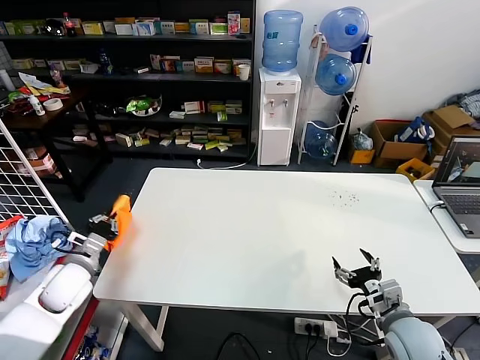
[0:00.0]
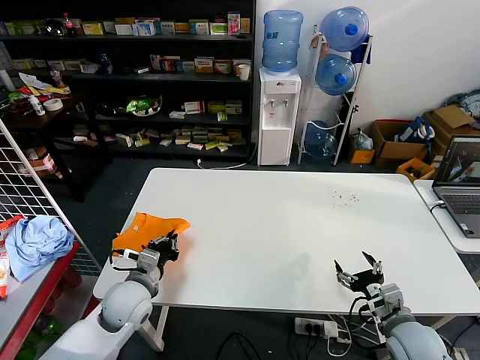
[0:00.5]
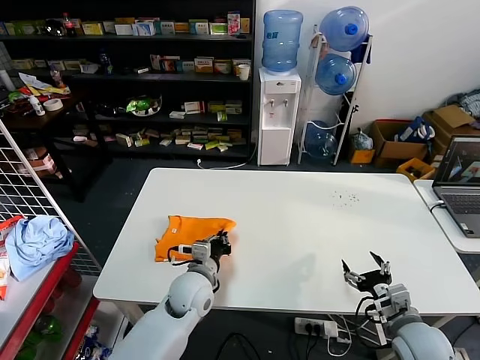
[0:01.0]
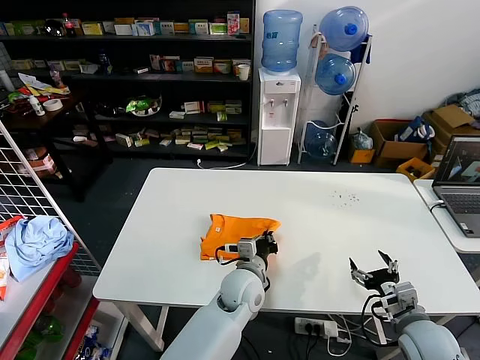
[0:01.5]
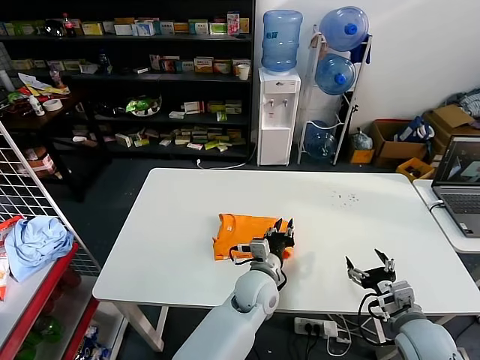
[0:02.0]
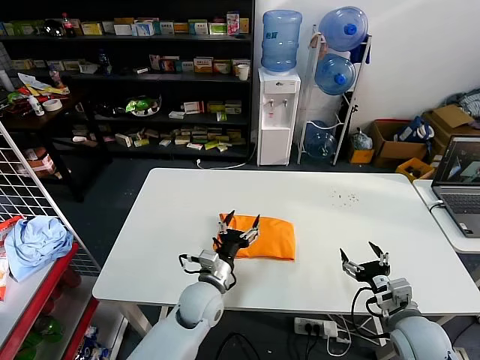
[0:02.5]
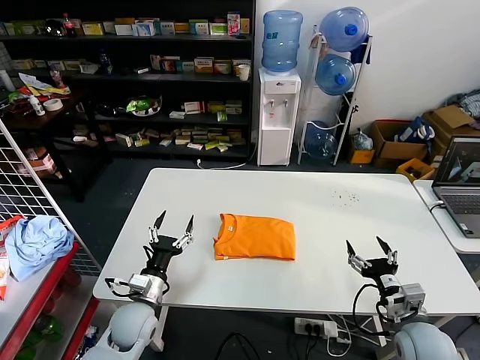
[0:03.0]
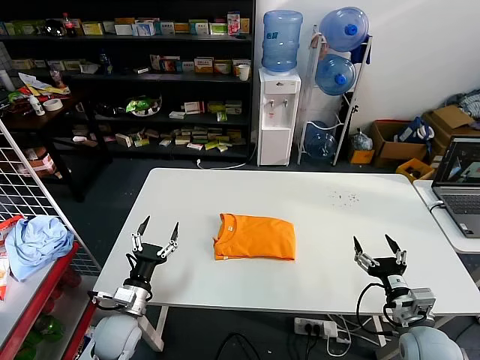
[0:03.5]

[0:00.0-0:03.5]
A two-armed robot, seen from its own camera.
Task of the whole recording: fold and organize the clothes.
Step, 0:00.0 to 0:02.0: Flip the folded clothes over with left gripper.
0:00.0 to 0:02.0: The left gripper moves to the right, some 40 cm.
0:02.0 to 0:03.5: The left gripper heads to the left, covering about 30 cm, and opens up.

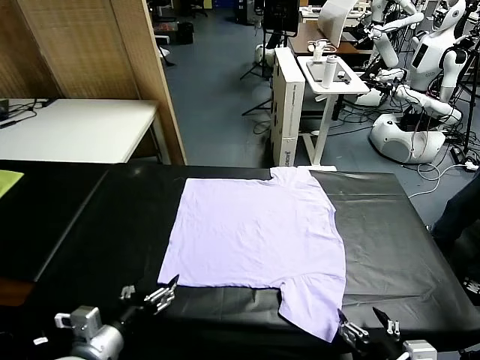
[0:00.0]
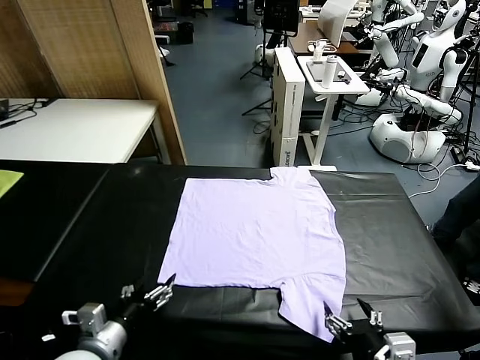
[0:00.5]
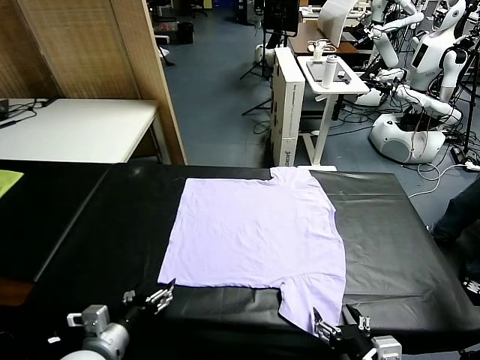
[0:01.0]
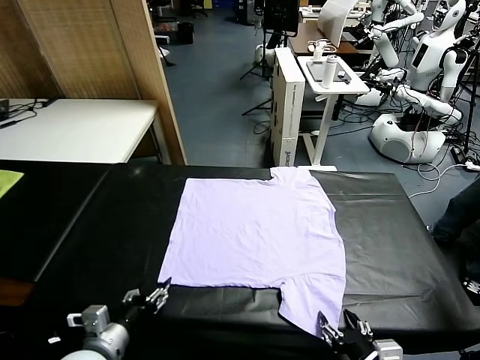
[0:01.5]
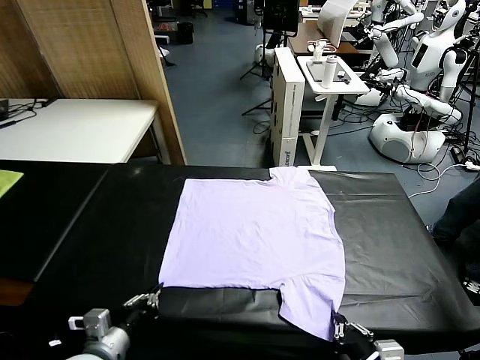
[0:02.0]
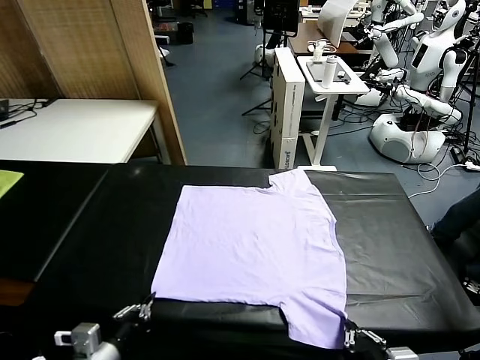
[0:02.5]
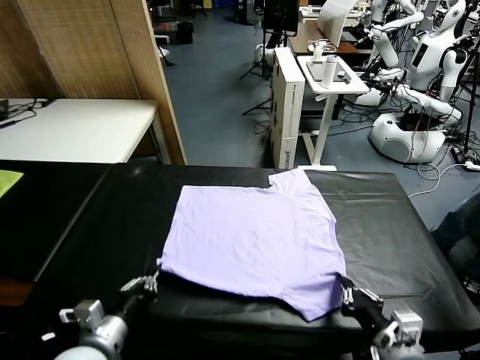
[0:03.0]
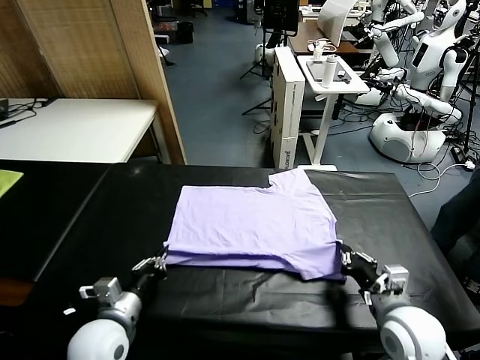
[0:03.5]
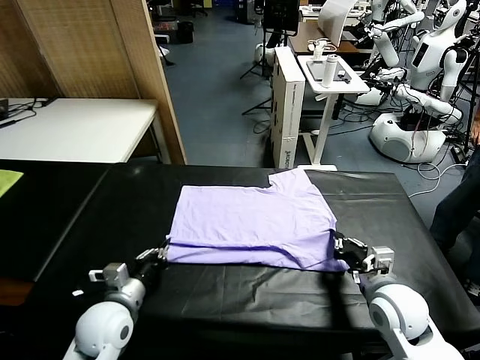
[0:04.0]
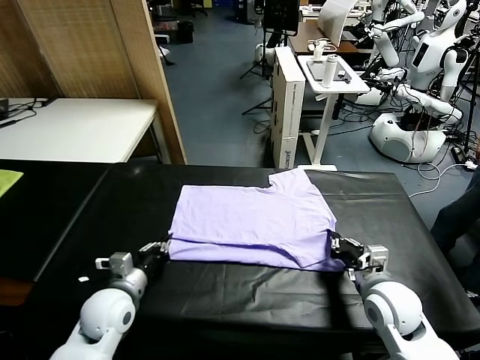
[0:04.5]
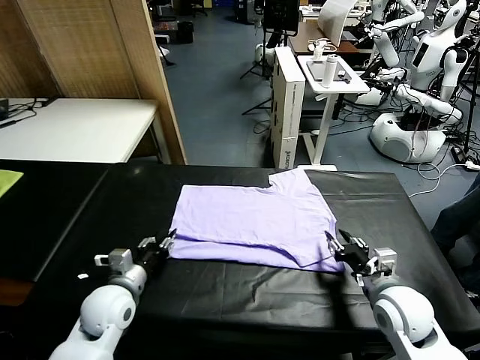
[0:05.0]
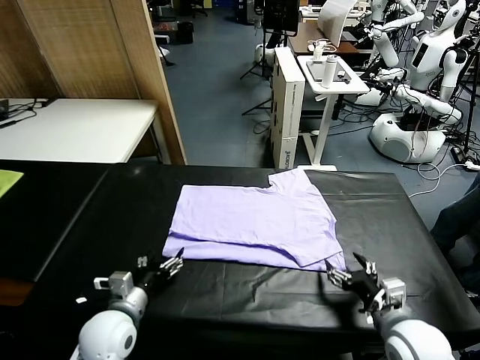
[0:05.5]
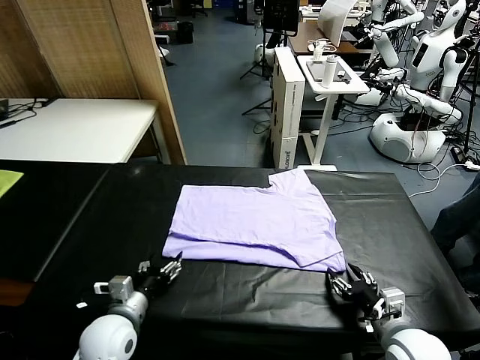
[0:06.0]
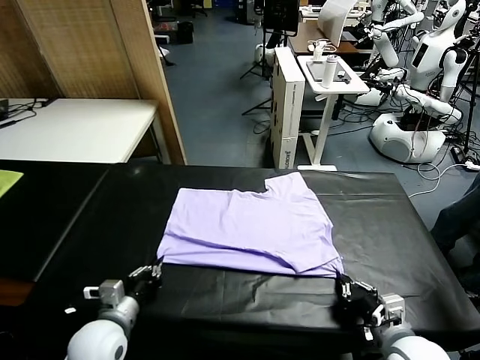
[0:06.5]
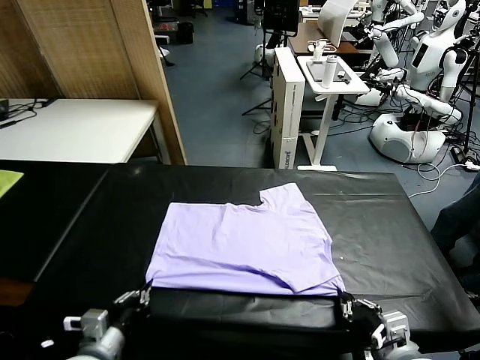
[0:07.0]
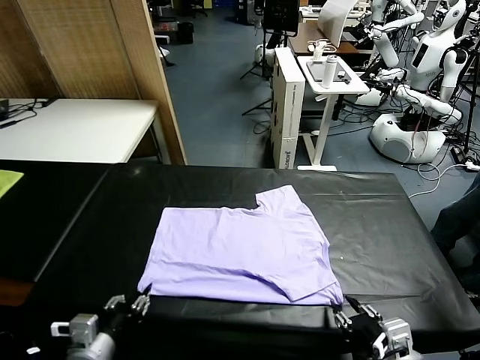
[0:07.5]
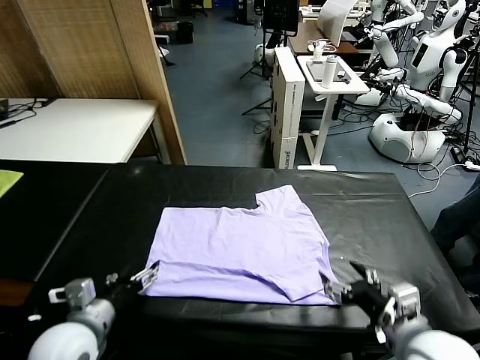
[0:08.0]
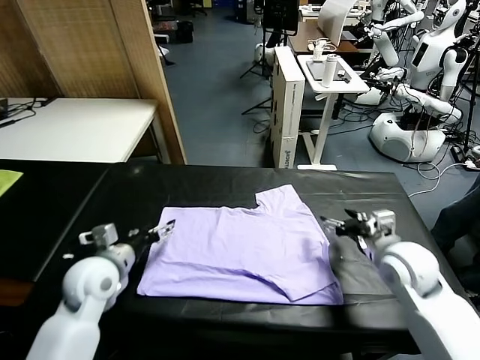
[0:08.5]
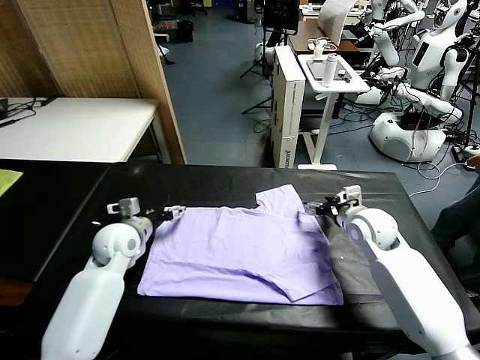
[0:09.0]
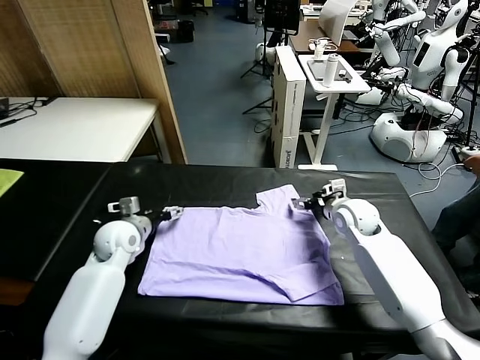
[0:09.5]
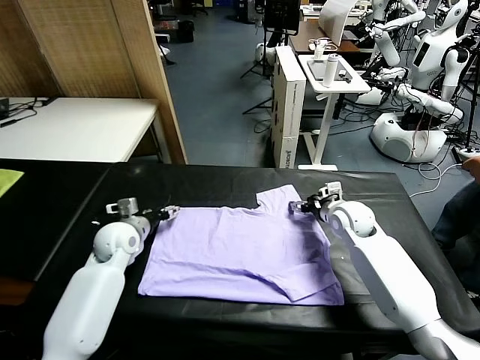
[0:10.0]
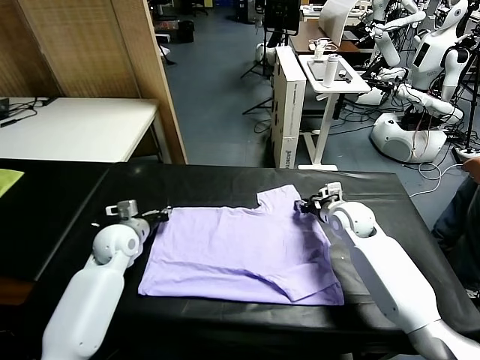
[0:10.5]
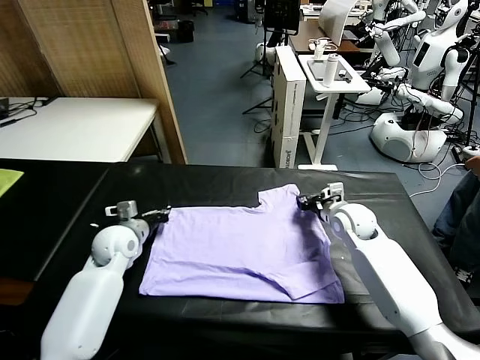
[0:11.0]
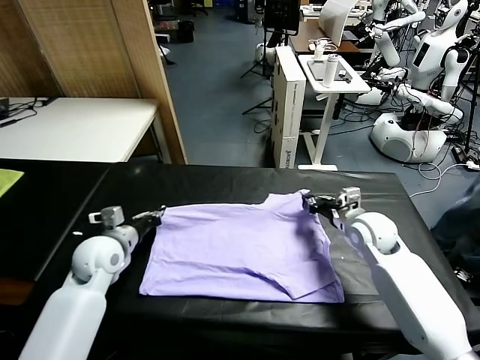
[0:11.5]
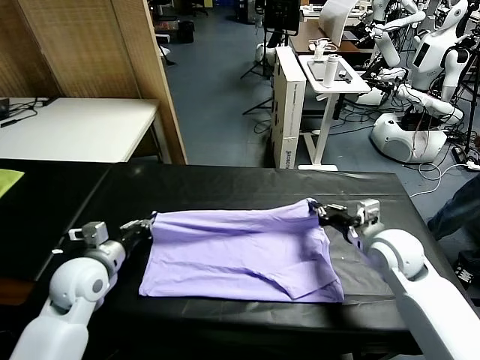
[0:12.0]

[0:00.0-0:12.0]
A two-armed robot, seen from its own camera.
Task of the whole recording: fold and organize the clothes.
Step, 0:00.0 to 0:02.0: use both grippers simultaneously to clamp the lower edge of the clothing fabric.
Step, 0:02.5 to 0:05.0: use both grippers to drag the lower edge of the fabric forward and fold it over the upper edge.
Step, 0:05.5 to 0:07.5: Drag the clothes downward with both gripper.
Step, 0:08.0 to 0:10.5: use both grippers simultaneously to clamp the upper edge of the clothing fabric.
0:02.0 to 0:04.0: The left gripper moves forward, some 10 cm, while the right gripper shifts about 20 cm forward.
0:04.0 to 0:06.0: The left gripper opens; the right gripper is displaced backward by some 10 cm, and opens, then closes once more.
0:06.0 to 0:08.0: Both grippers move upward, roughly 10 cm. The right gripper opens up; the left gripper closes and opens again.
0:08.0 to 0:10.0: Both grippers travel together forward, roughly 25 cm.
0:10.0 to 0:12.0: Both grippers move backward, some 15 cm. The left gripper closes up, while the right gripper closes its fingers.

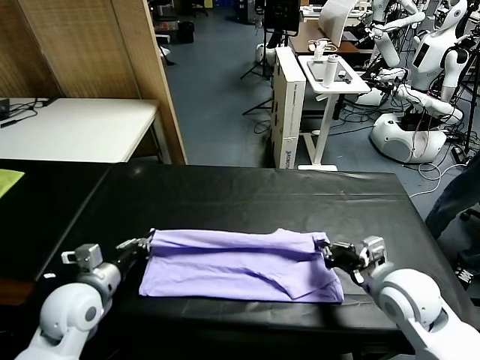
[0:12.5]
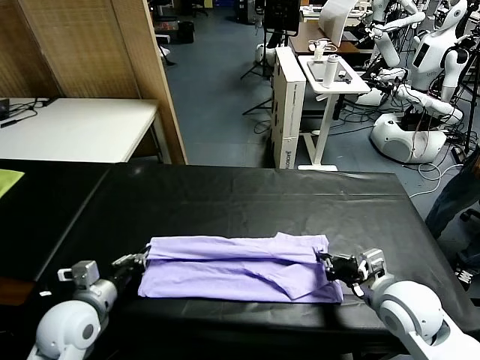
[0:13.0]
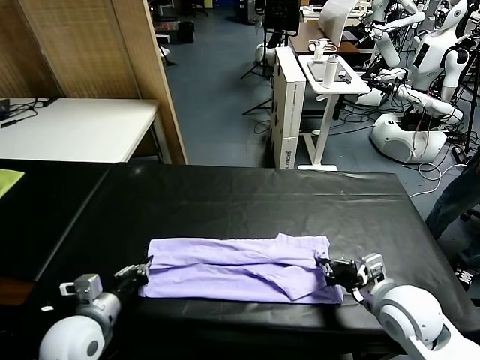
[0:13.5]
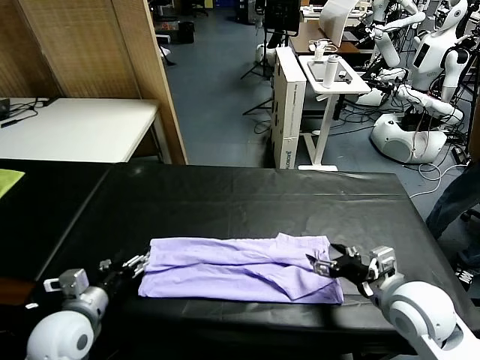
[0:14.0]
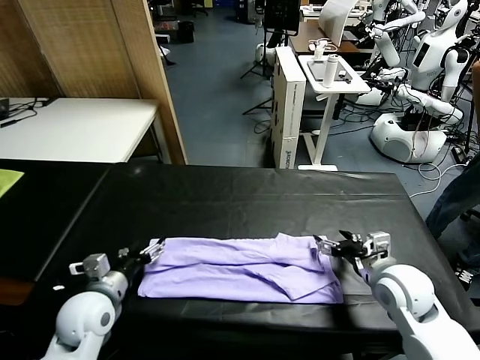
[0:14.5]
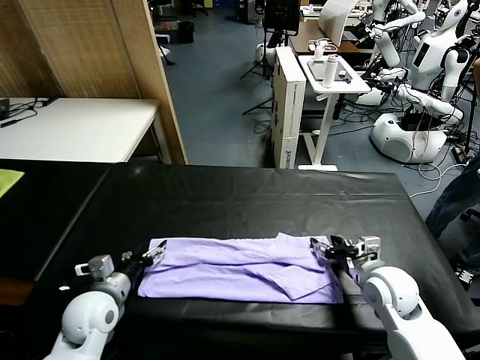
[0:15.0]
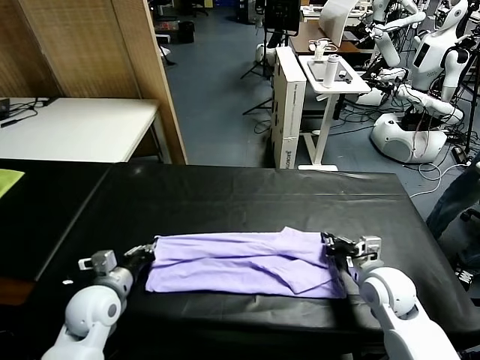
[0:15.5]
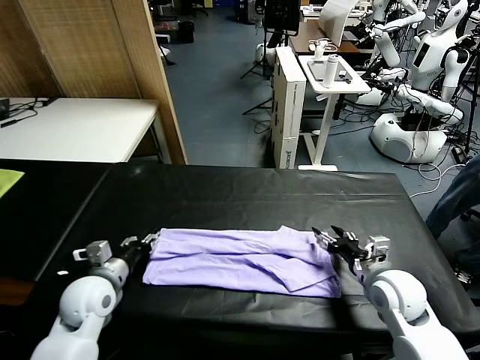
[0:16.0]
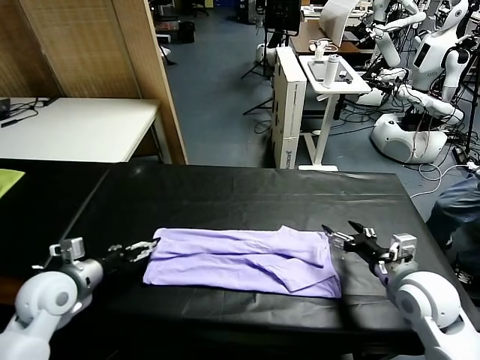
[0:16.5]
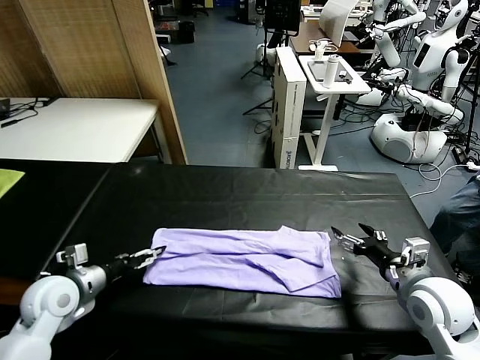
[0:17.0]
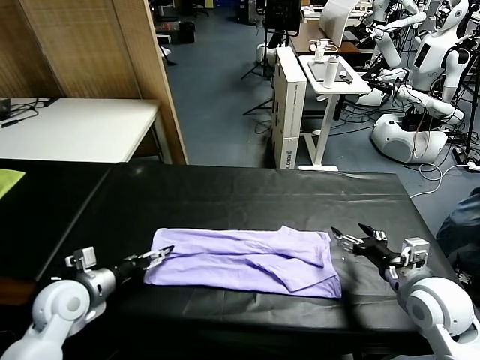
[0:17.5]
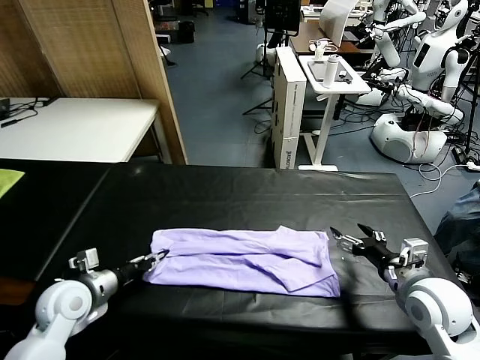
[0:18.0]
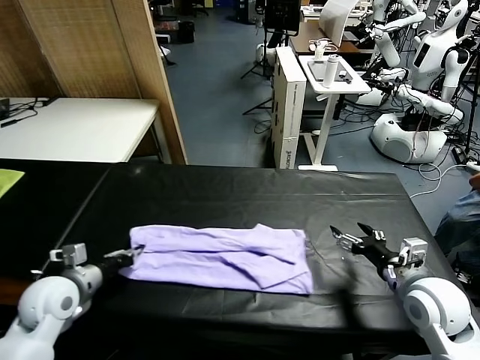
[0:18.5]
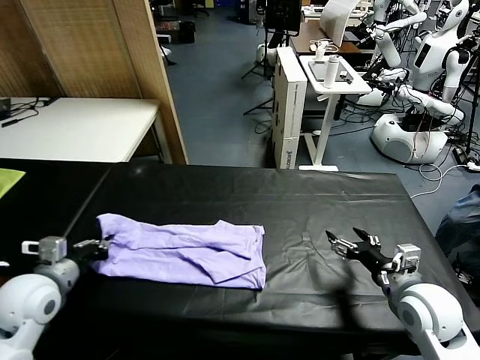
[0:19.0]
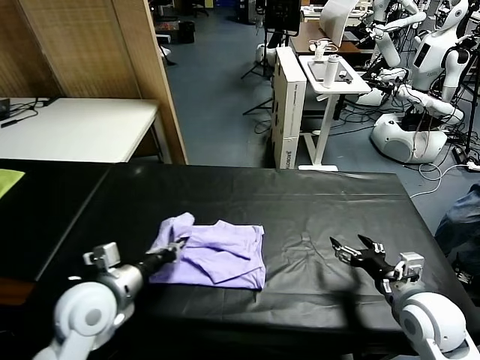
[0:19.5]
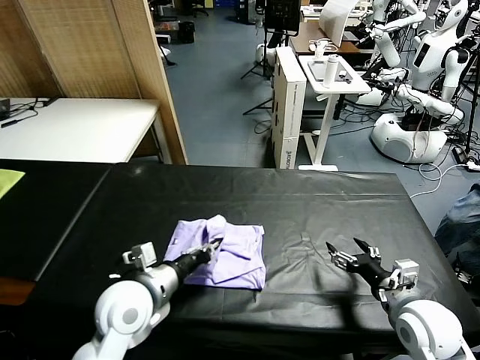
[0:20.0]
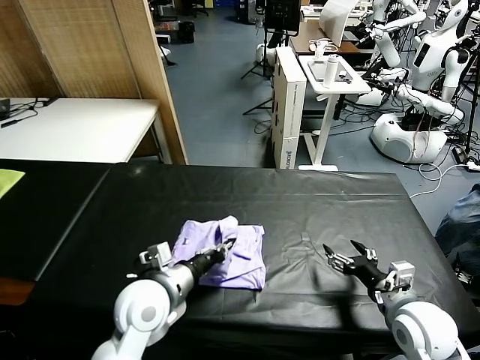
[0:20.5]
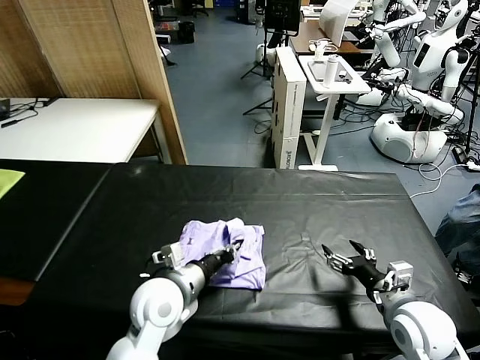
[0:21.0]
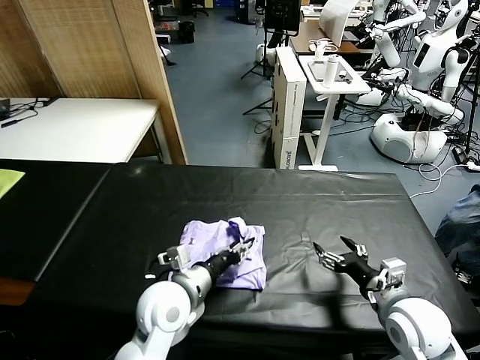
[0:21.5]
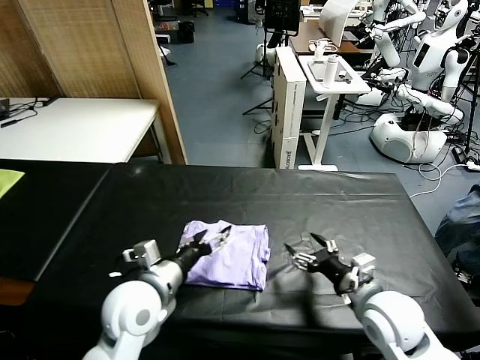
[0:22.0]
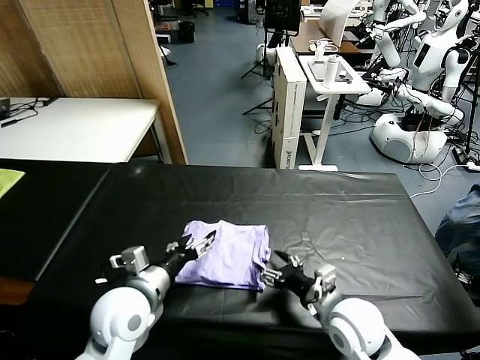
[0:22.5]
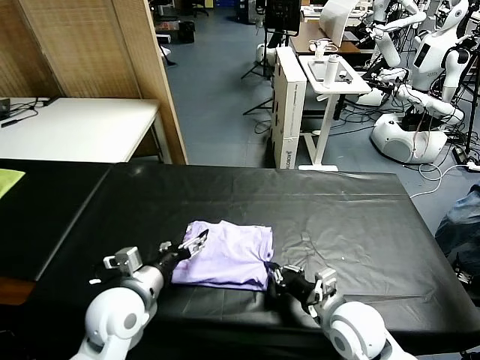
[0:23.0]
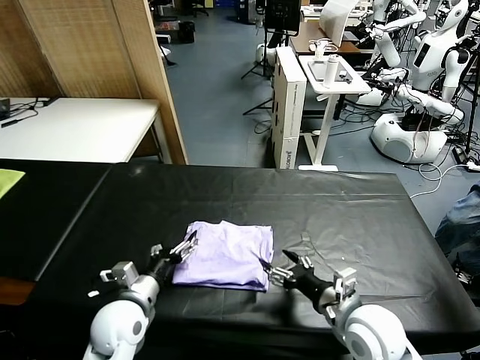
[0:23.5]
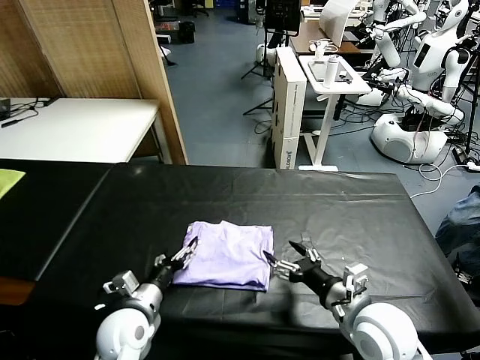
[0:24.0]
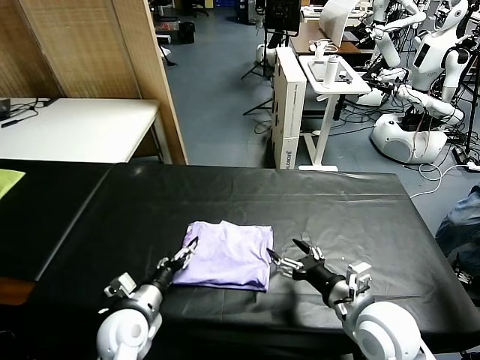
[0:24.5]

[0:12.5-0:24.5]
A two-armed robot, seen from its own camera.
Task of the whole recording: fold and organize the clothes.
Step, 0:14.0 to 0:18.0: use the left gripper to clamp the left edge of the fabric.
Step, 0:18.5 to 0:21.5: use the left gripper to drag the left edge of the fabric to the left and folds it over the right edge.
0:12.5 to 0:14.5: The right gripper ends up about 5 cm from where it was, and opens its fingers; the left gripper opens up.
0:14.5 to 0:16.5: The left gripper is displaced to the left by some 5 cm, and closes, then opens again, while the right gripper shifts by some 5 cm, and closes, then reopens.
0:16.5 to 0:18.5: The left gripper closes.
0:18.5 to 0:20.5: The left gripper moves to the right, approximately 20 cm.
0:20.5 to 0:22.5: The left gripper opens, while the right gripper travels to the left by approximately 10 cm.
0:22.5 to 0:24.5: The right gripper moves some 5 cm, and closes and opens again. Meanwhile the left gripper heads downward, covering approximately 10 cm.
